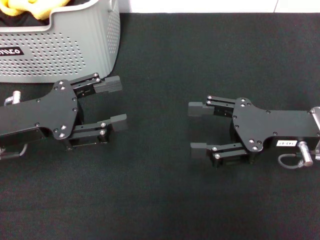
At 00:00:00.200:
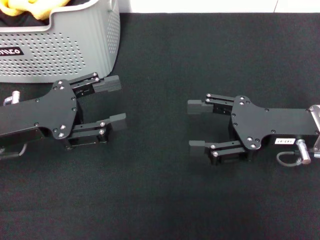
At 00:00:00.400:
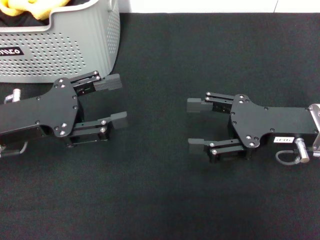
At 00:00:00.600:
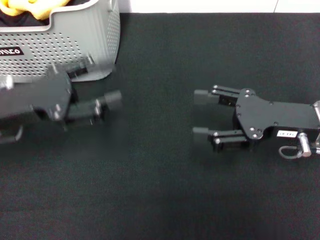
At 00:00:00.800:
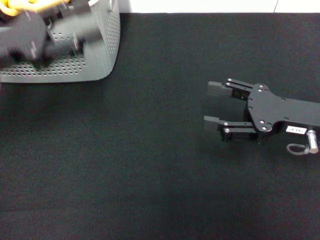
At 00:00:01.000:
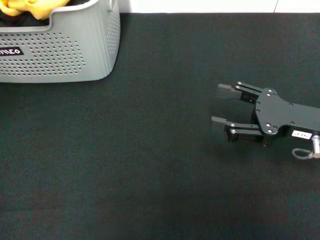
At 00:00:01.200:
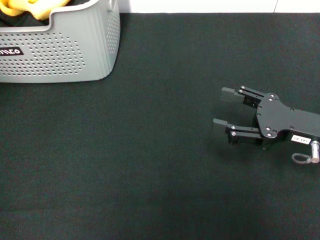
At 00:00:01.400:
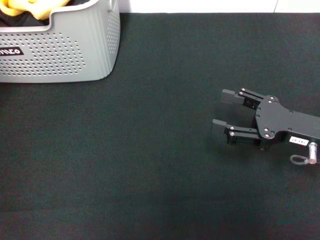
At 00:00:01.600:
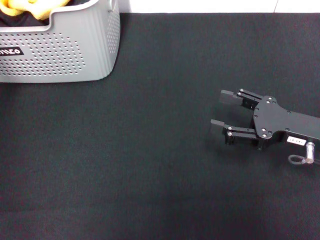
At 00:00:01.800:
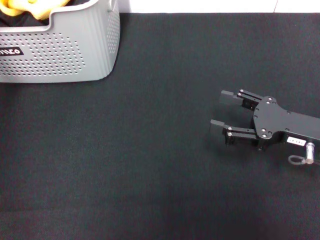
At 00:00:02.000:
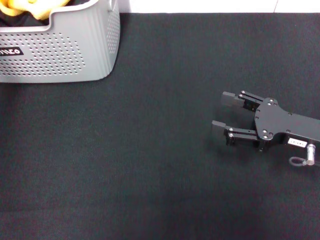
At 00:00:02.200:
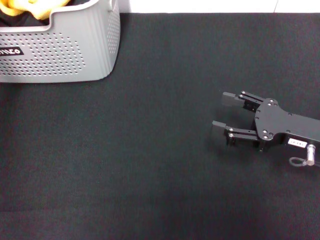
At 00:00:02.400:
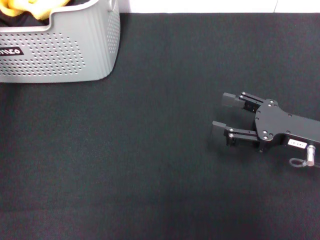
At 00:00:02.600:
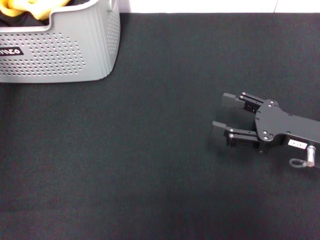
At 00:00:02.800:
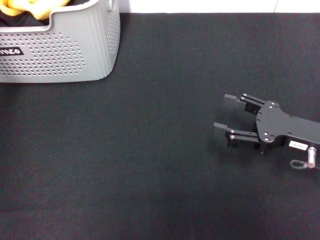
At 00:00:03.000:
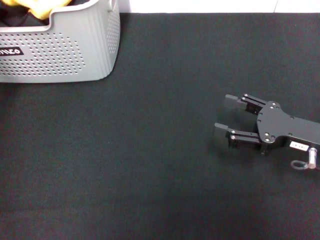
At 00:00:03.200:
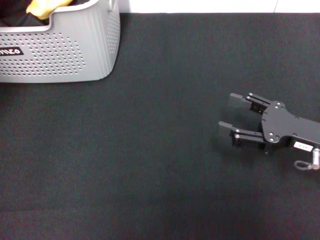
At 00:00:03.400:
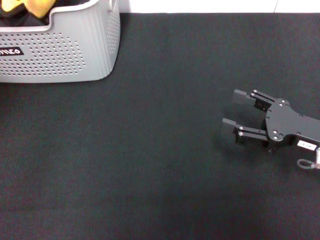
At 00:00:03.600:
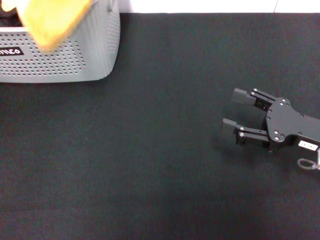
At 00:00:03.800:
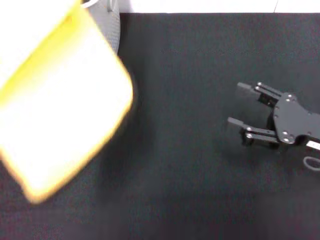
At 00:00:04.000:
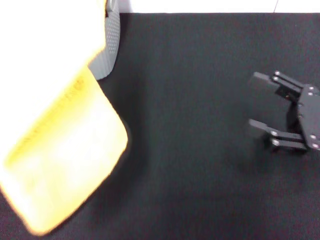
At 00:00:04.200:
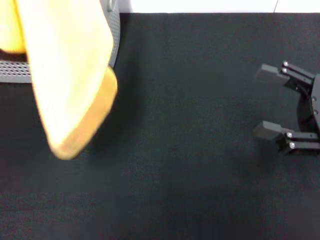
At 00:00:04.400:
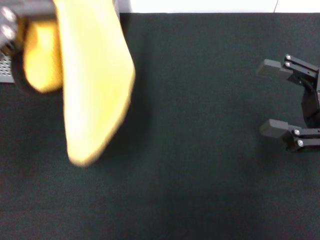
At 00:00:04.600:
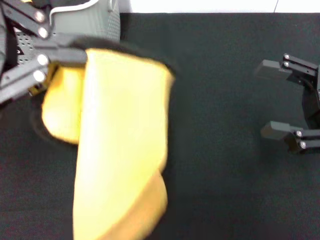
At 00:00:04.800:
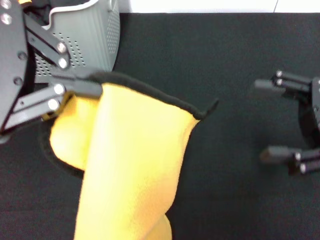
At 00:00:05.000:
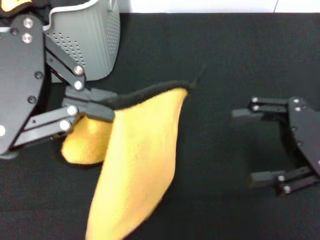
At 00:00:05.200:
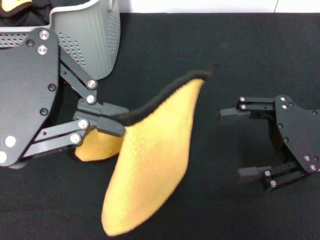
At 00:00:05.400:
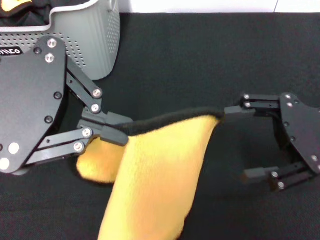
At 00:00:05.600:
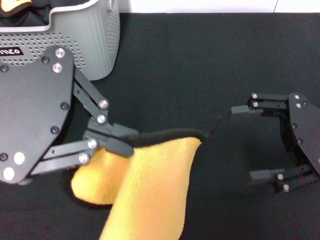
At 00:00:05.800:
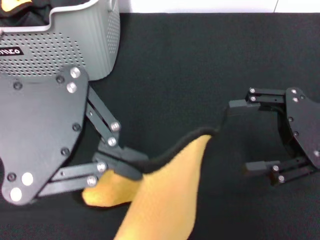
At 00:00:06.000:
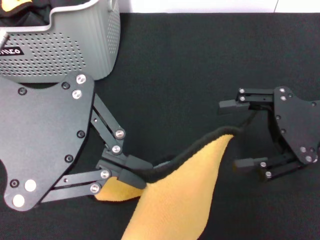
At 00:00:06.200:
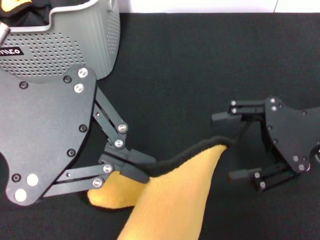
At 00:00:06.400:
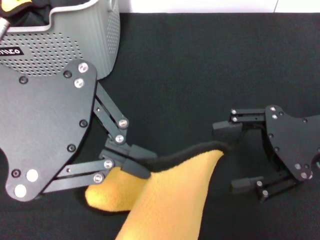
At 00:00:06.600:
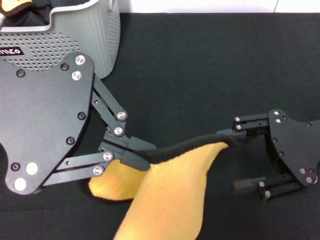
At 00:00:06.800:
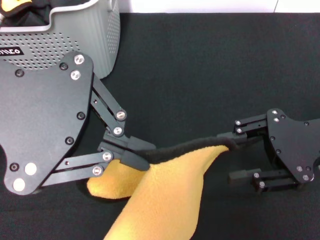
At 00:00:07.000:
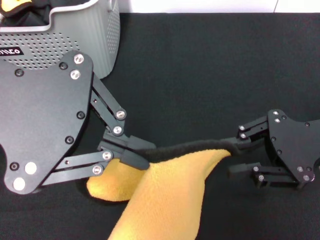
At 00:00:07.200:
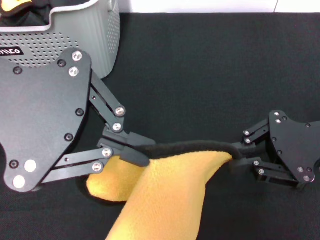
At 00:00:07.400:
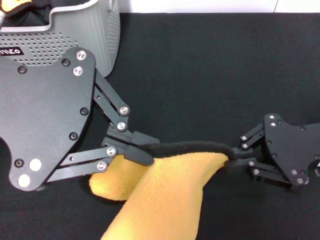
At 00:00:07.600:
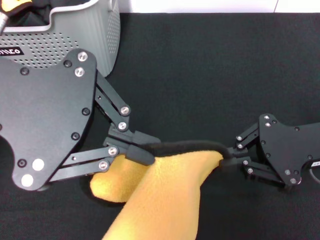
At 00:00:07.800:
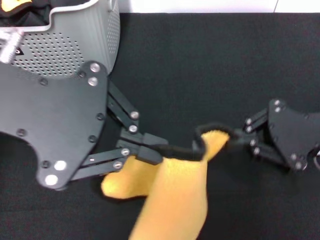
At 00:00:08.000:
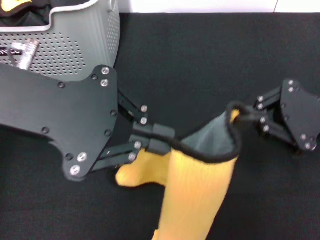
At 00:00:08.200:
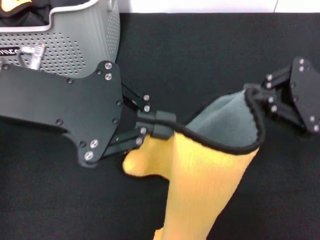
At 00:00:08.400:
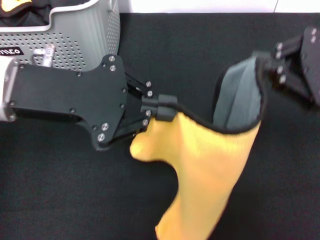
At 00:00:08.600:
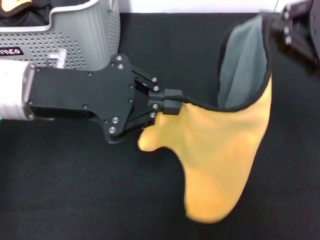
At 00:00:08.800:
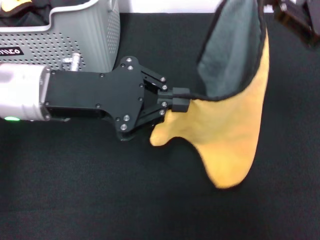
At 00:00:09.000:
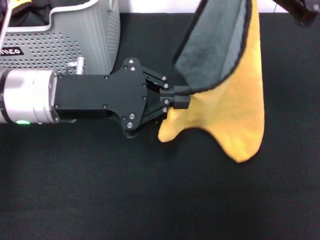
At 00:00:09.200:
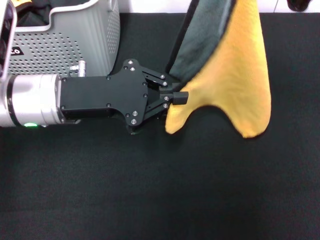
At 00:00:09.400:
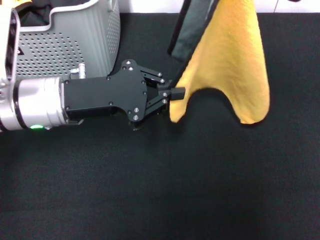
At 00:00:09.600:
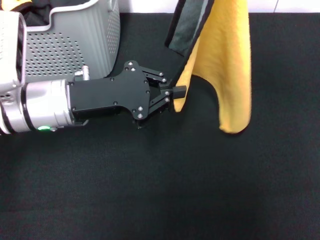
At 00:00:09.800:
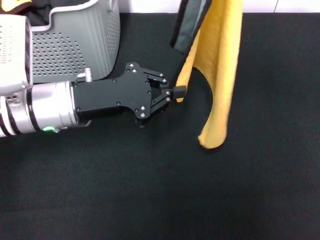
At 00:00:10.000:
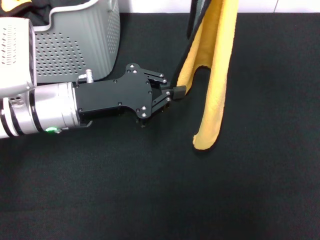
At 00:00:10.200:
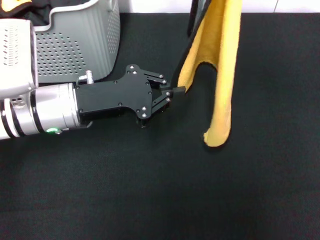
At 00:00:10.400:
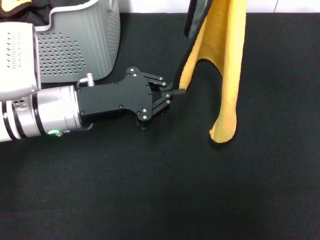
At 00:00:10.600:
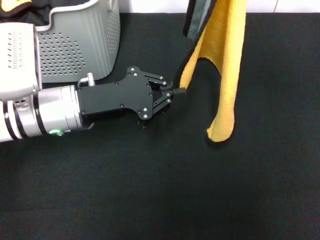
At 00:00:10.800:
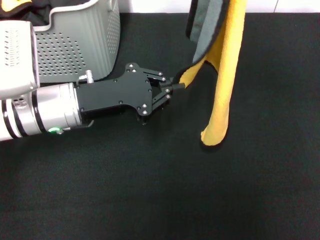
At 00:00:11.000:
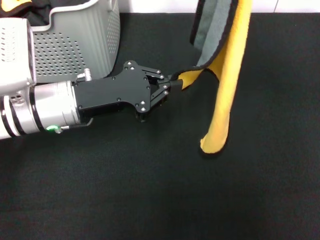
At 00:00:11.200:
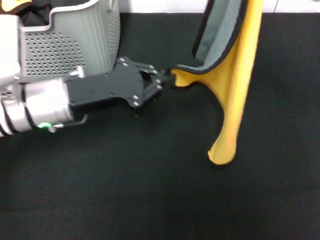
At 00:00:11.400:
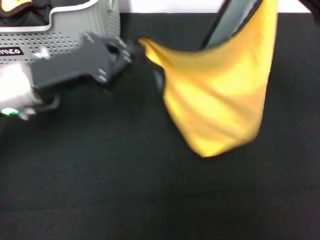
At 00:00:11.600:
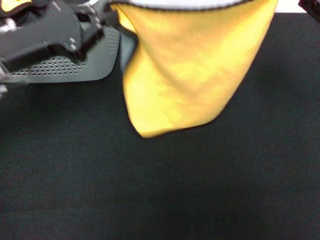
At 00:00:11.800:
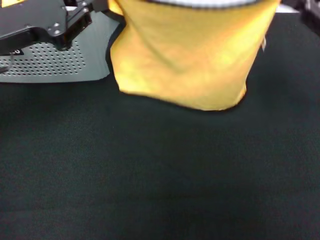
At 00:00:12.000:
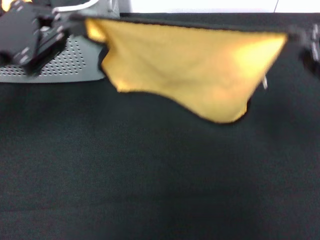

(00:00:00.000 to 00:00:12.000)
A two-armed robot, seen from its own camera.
Task of the whole recording: pick up the towel from the storage box and lay it flat on the black tablecloth.
Step, 00:00:00.000 - 00:00:02.800: Pick up a towel with the left gripper.
Step, 00:00:03.200 - 00:00:07.400: Spread the towel flat with the left gripper.
00:00:00.000 - 00:00:01.600: The left gripper is displaced upward and forward by about 20 cm.
00:00:01.600 - 00:00:03.000: The left gripper closes up.
00:00:03.000 - 00:00:04.400: The right gripper travels upward by about 5 cm; the left gripper moves backward, approximately 15 cm.
00:00:04.400 - 00:00:06.000: The left gripper travels to the right by some 5 cm.
00:00:06.000 - 00:00:07.600: The right gripper closes its fingers.
00:00:07.600 - 00:00:09.000: The left gripper travels downward by approximately 15 cm. The right gripper moves upward and forward, some 15 cm.
00:00:09.000 - 00:00:10.400: The left gripper goes roughly 5 cm downward.
00:00:10.400 - 00:00:12.000: The left gripper shifts some 15 cm to the left and upward; the right gripper is displaced downward, backward and to the right by about 15 cm.

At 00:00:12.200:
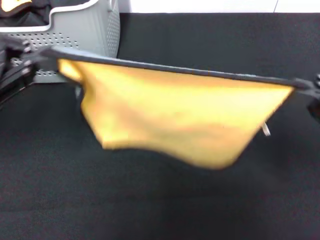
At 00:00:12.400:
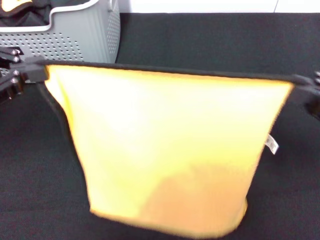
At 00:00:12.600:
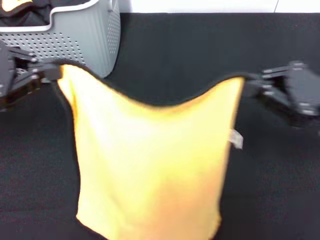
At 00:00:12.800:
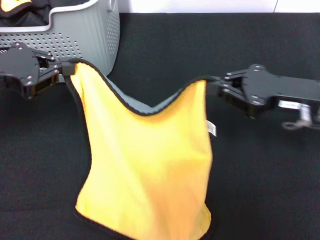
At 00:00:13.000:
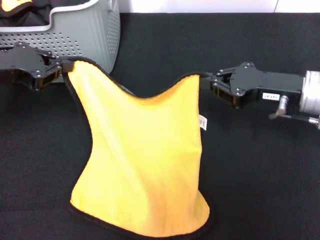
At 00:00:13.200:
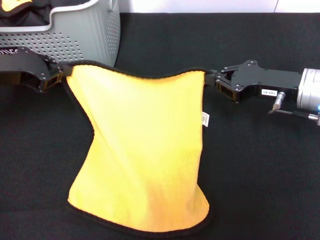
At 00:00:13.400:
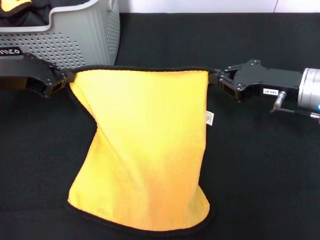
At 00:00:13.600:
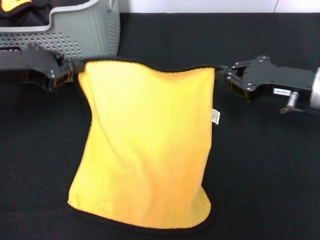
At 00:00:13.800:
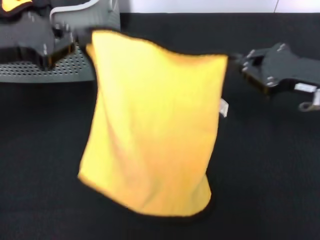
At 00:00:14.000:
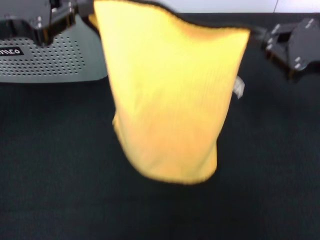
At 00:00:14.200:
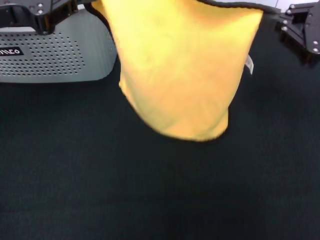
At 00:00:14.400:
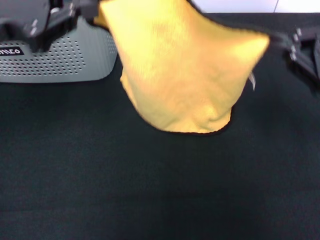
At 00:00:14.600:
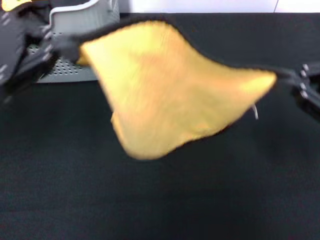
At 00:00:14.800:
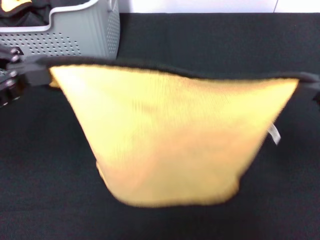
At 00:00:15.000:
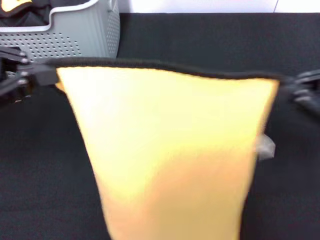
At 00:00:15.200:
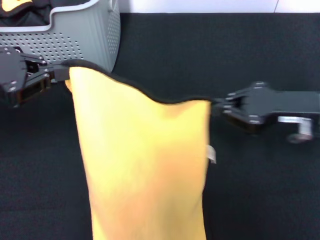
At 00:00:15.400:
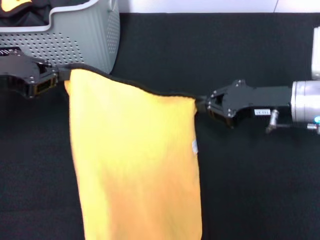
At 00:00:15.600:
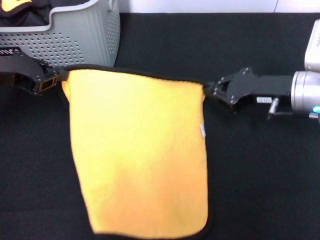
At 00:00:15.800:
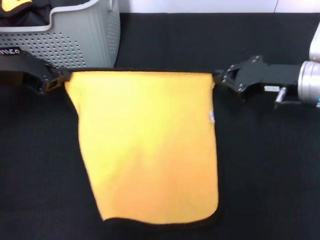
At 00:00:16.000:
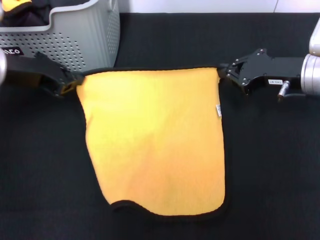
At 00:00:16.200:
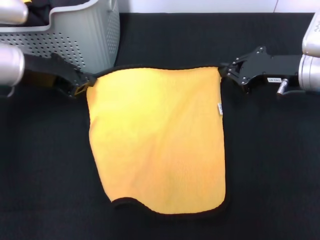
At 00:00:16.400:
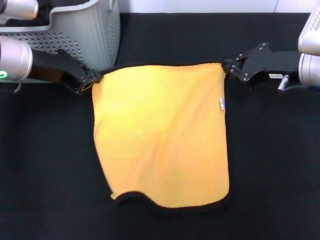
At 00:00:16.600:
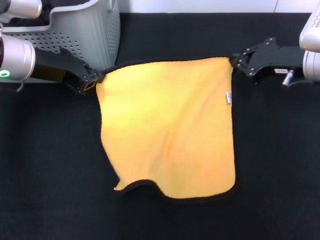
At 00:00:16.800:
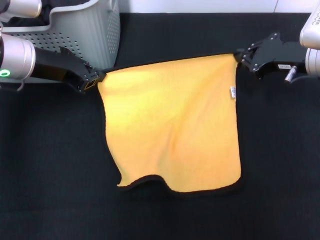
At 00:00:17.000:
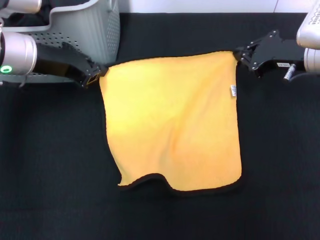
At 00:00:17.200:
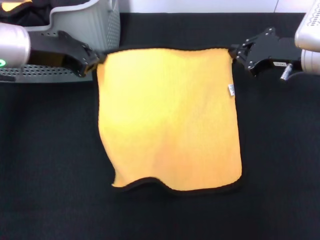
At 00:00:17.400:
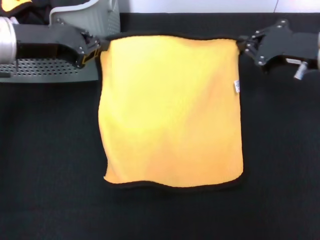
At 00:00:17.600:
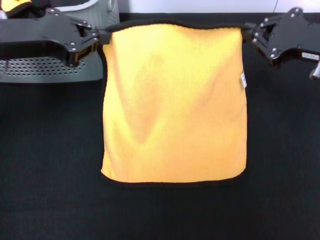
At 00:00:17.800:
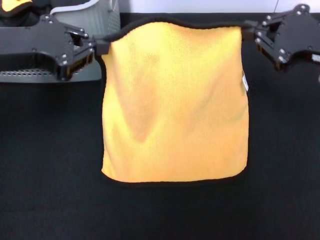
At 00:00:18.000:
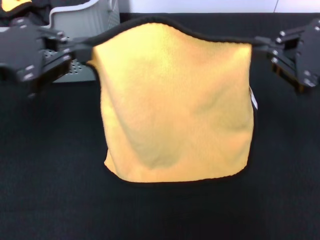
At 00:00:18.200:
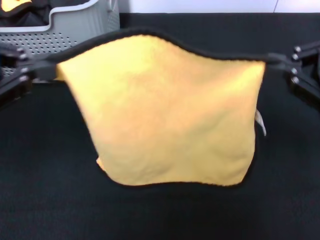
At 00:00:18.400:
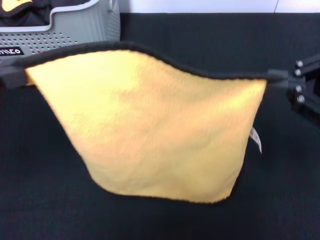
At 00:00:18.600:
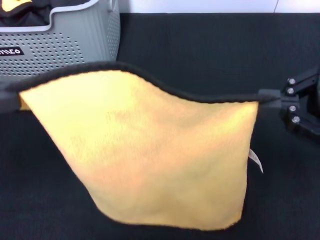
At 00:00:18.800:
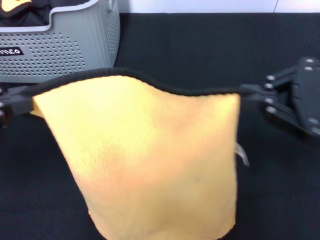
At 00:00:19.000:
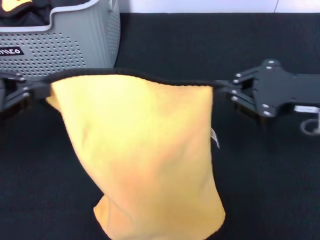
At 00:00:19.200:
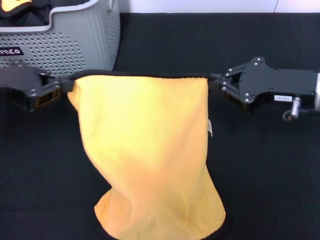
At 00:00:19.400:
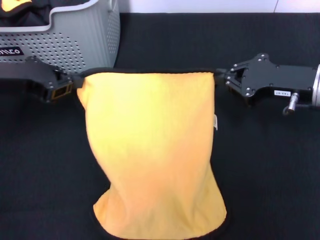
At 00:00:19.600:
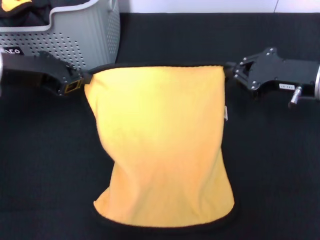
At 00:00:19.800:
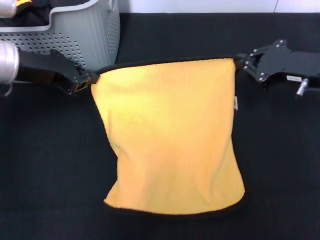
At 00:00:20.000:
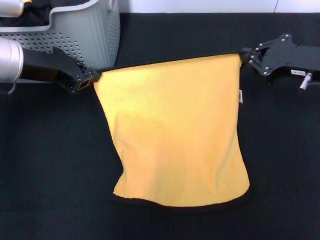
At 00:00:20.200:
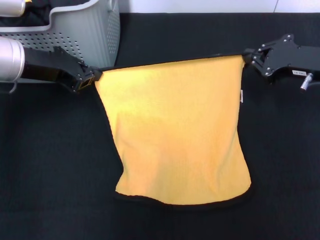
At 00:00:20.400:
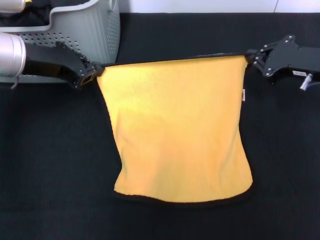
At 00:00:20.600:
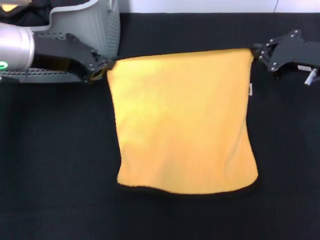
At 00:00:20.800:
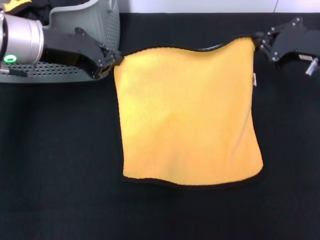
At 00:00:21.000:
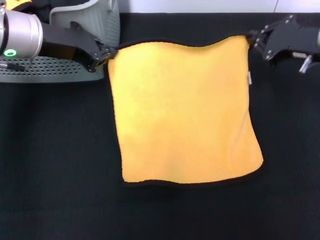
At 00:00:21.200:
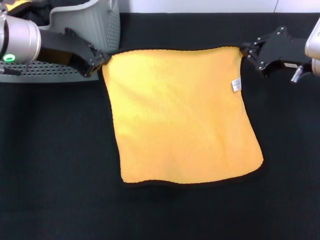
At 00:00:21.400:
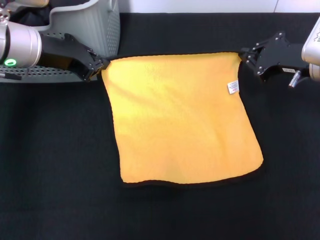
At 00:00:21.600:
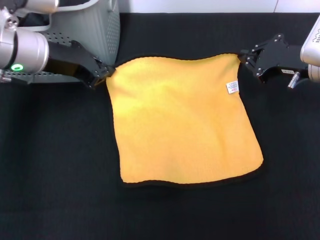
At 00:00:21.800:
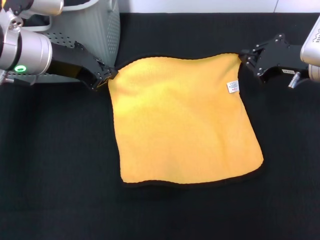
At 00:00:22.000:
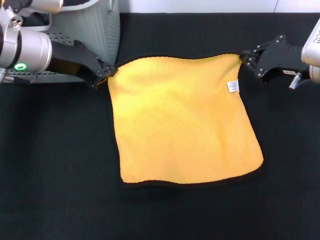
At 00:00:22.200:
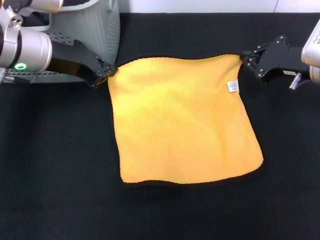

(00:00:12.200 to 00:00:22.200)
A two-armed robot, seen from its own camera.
Task of the whole recording: pick up the towel from the storage box and lay it flat on the black tablecloth.
00:00:12.200 - 00:00:13.600: The left gripper heads forward, covering about 5 cm, while the right gripper goes some 15 cm forward, to the left and downward.
00:00:13.600 - 00:00:15.000: The right gripper goes approximately 15 cm backward, upward and to the right; the left gripper travels backward and upward by approximately 10 cm.
00:00:15.000 - 00:00:16.400: The right gripper shifts roughly 15 cm forward, to the left and downward. The left gripper heads forward, downward and to the right, covering some 15 cm.
00:00:16.400 - 00:00:18.000: The grippers both shift backward and upward by approximately 15 cm.
00:00:18.000 - 00:00:19.400: The grippers both shift downward and forward by roughly 10 cm.
00:00:19.400 - 00:00:20.800: The left gripper shifts about 5 cm to the right. Meanwhile the right gripper changes place by about 5 cm.
00:00:20.800 - 00:00:22.200: There are only small adjustments of the grippers.
